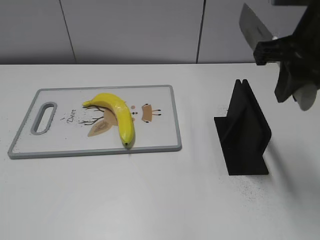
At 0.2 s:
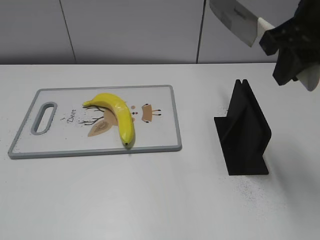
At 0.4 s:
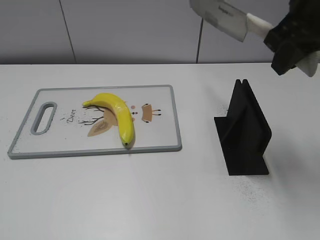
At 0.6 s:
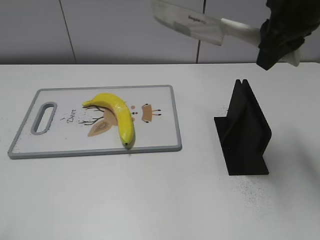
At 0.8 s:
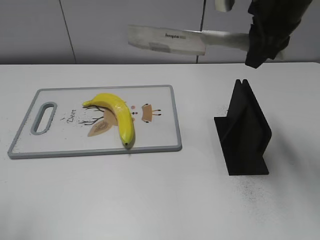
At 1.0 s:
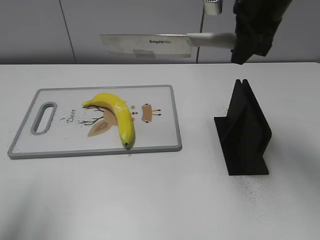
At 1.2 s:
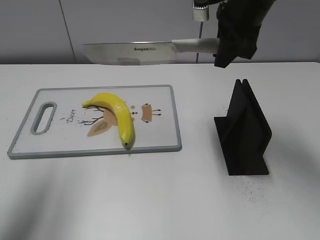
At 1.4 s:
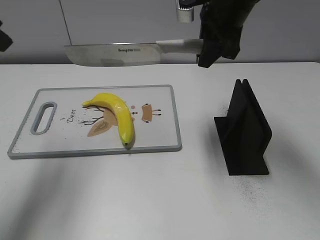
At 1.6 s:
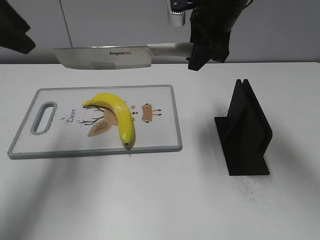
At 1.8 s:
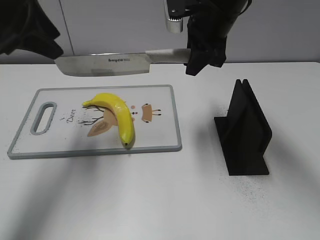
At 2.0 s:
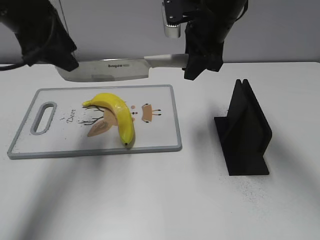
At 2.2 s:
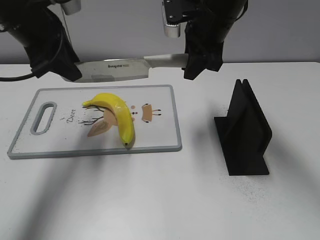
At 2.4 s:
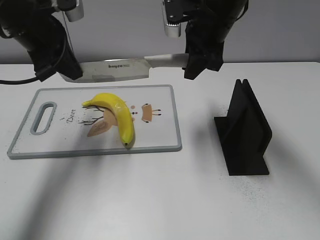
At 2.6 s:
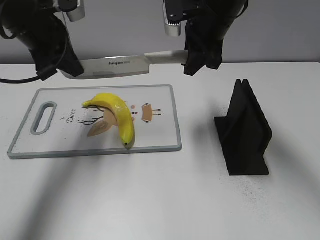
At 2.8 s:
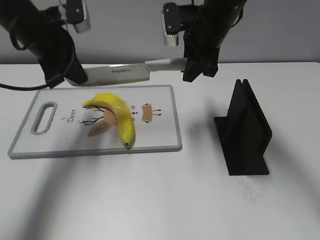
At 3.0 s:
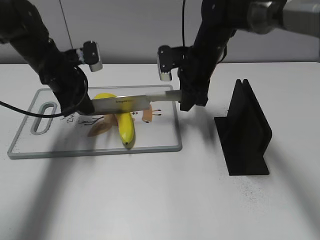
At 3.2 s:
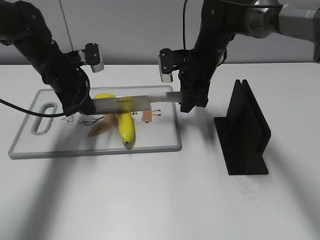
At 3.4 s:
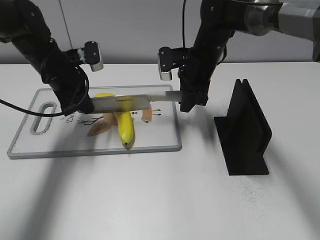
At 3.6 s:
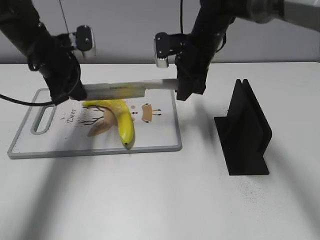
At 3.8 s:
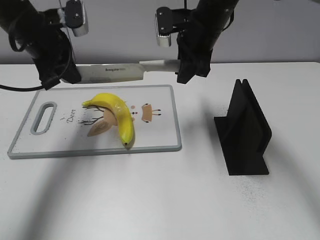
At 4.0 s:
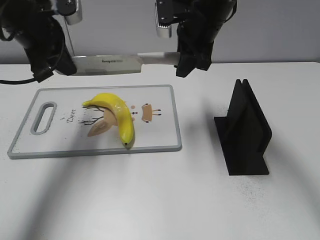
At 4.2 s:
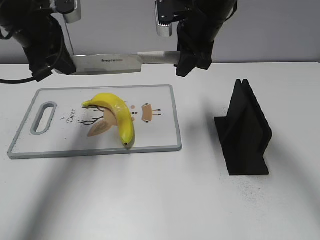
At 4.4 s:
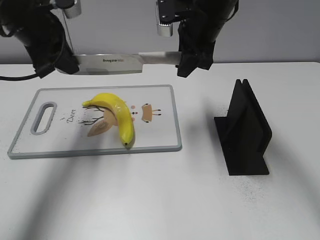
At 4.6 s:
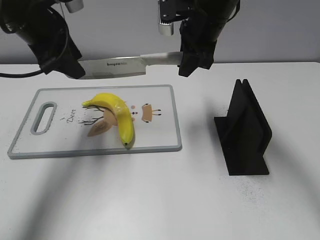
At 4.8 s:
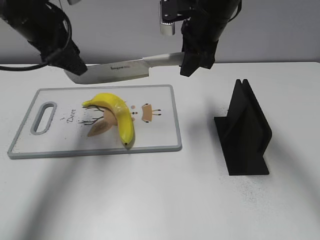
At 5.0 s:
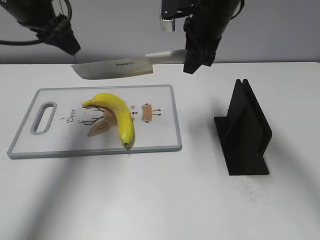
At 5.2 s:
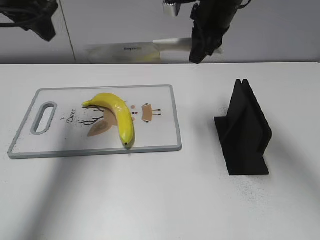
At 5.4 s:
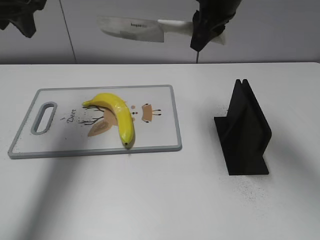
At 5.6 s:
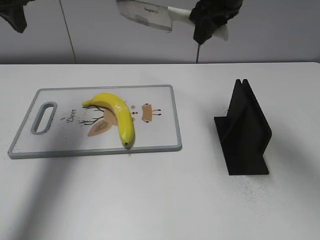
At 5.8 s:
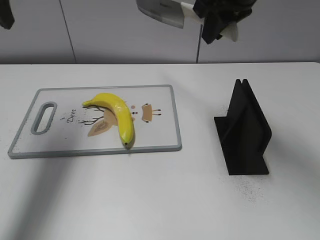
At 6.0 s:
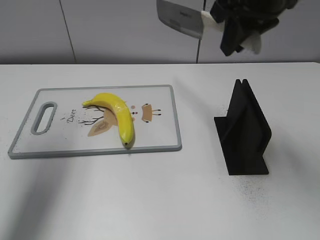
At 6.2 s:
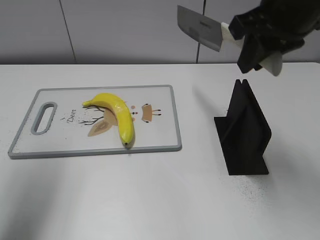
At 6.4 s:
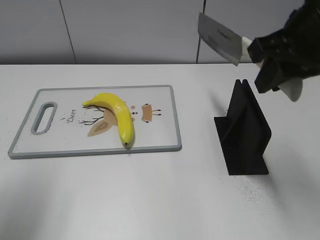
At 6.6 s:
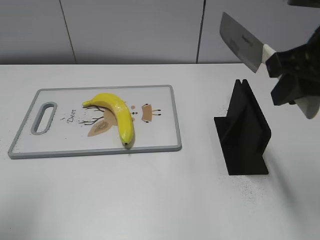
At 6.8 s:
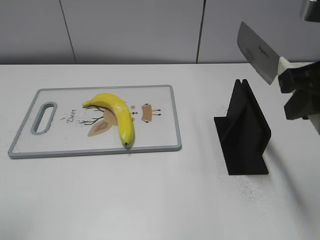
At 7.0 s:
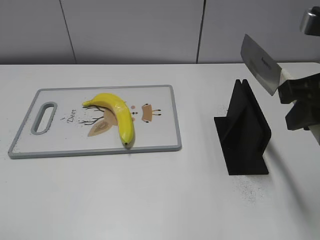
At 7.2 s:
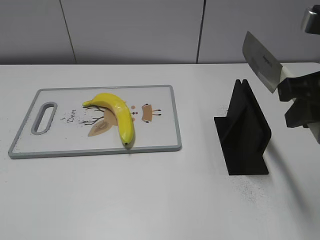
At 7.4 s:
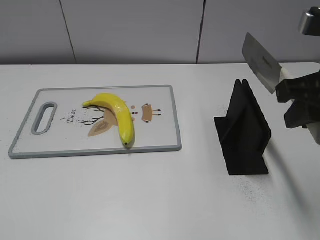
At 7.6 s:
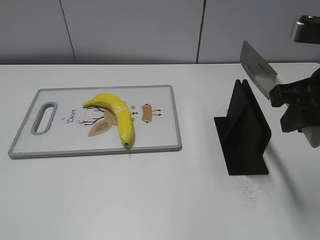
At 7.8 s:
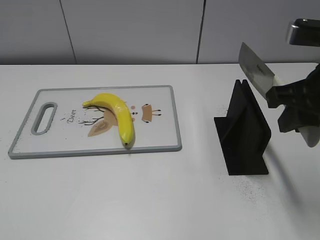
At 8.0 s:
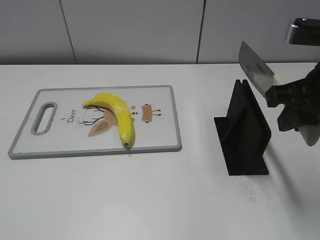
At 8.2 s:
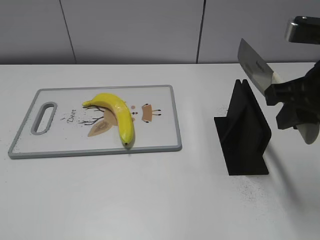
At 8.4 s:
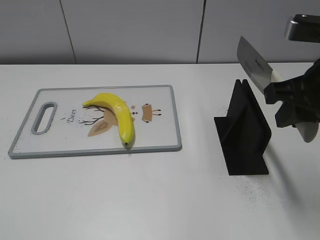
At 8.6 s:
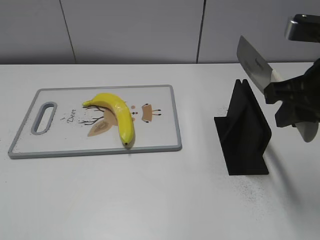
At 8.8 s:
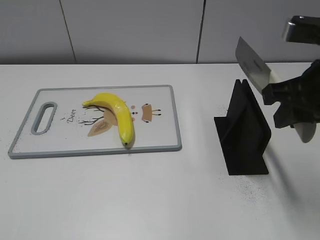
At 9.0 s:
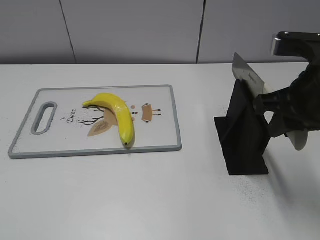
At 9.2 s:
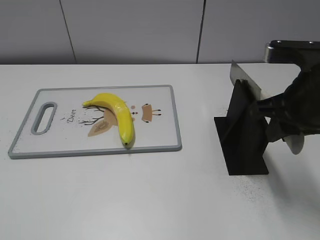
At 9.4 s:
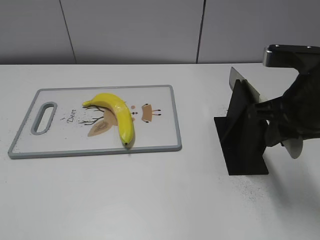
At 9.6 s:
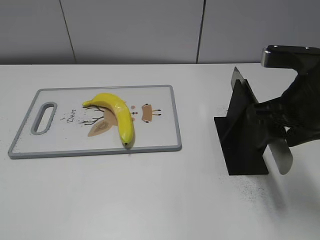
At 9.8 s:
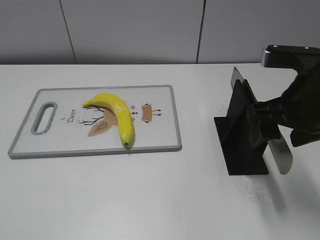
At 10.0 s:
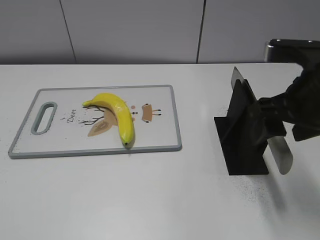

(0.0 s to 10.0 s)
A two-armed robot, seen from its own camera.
Task of the whole recording: cut plastic banana.
Step, 0.4 s - 4.4 s: Hold the blade with your left hand.
Step, 4.6 s - 5.4 s: Cut the banana with your right hand.
Step, 5.6 s - 7.0 s: Lift the knife with your right hand.
0.0 s - 1.4 s: The right gripper shifts approximately 15 cm forward and to the left; the left gripper shifts approximately 25 cm forward.
1.4 s - 2.8 s: The left gripper is displaced forward, downward and to the right by about 20 cm, and closes up. Meanwhile the right gripper ends up about 5 cm from where it was.
2.8 s - 4.2 s: The left gripper goes downward and returns, about 10 cm each way, while the right gripper moves roughly 10 cm downward and comes back.
4.2 s - 5.8 s: The left gripper moves upward and to the left, approximately 10 cm, and opens its fingers. Meanwhile the right gripper travels upward by approximately 10 cm.
5.8 s - 7.2 s: The left gripper is displaced backward by approximately 30 cm. Meanwhile the right gripper shifts some 20 cm backward and to the right.
8.6 s - 10.0 s: The right gripper opens up.

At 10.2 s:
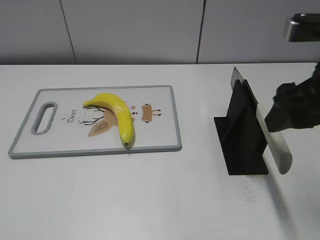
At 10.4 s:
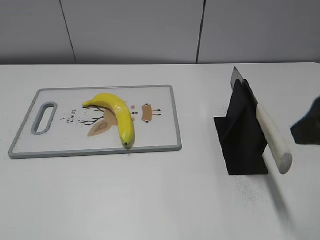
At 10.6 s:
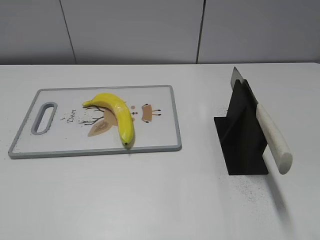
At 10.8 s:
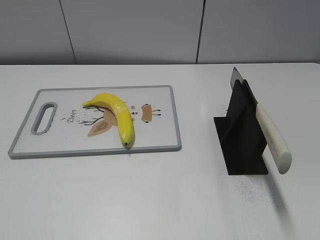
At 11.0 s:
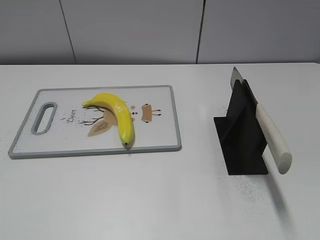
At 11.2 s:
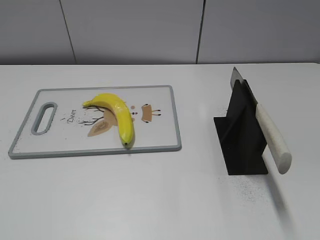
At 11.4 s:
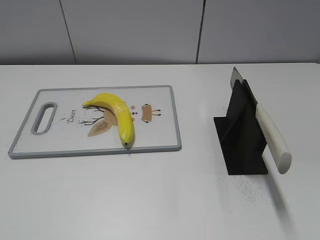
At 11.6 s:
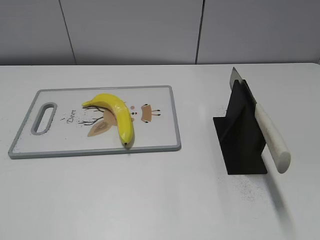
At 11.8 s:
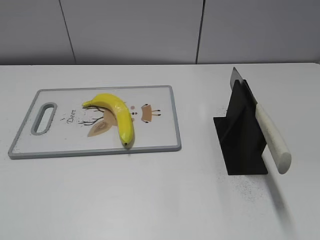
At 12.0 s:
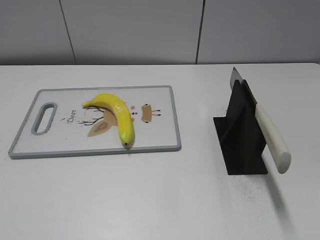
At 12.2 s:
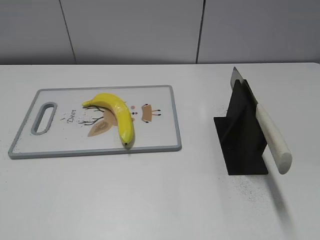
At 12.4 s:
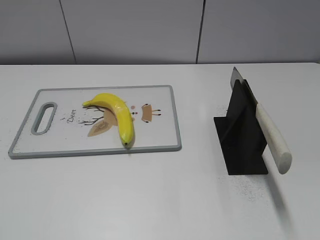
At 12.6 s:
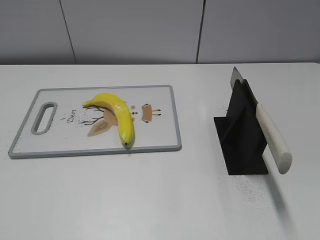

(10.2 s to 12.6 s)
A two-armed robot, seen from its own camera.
Task of the whole recording: cut plastic banana.
Step, 10.2 s - 12.6 s: Place the knife on the storage rack with your right hand.
10.2 s - 11.4 s: The right gripper moves backward and to the right, about 25 cm.
